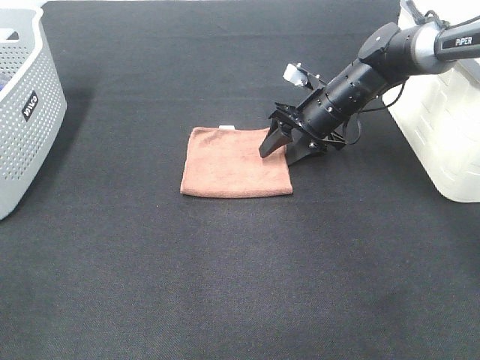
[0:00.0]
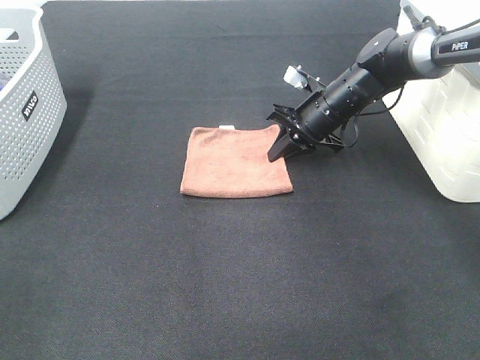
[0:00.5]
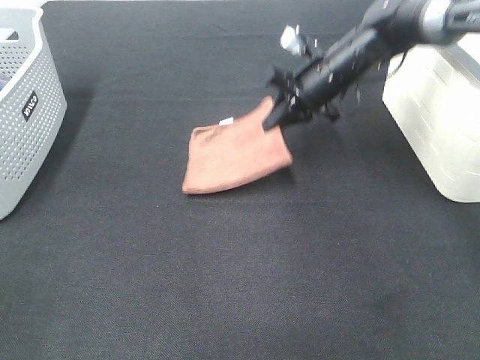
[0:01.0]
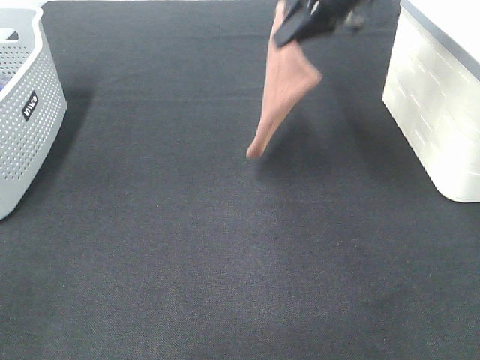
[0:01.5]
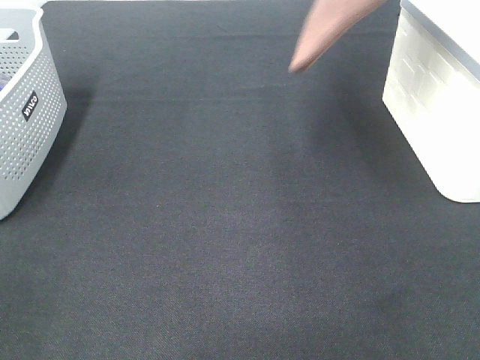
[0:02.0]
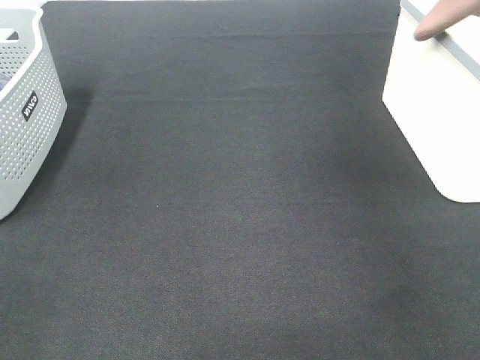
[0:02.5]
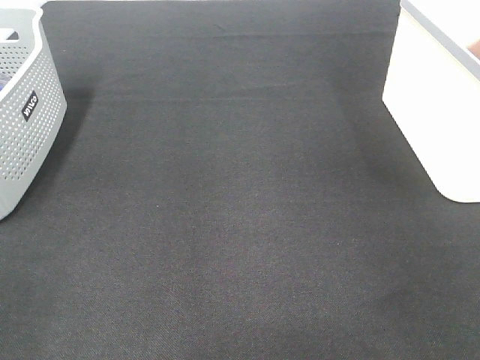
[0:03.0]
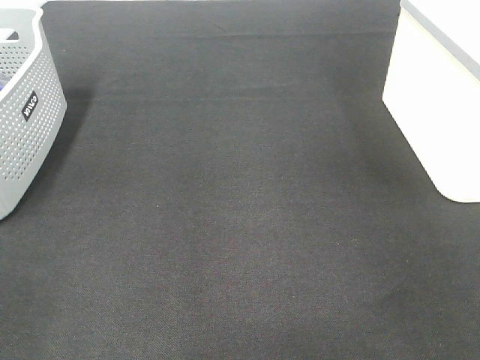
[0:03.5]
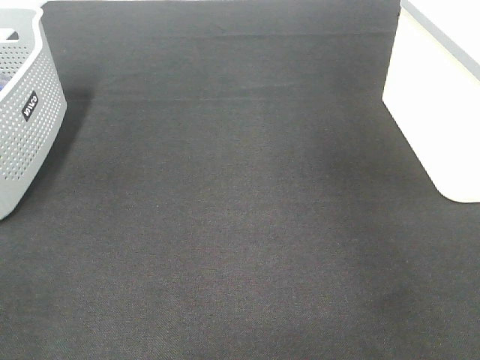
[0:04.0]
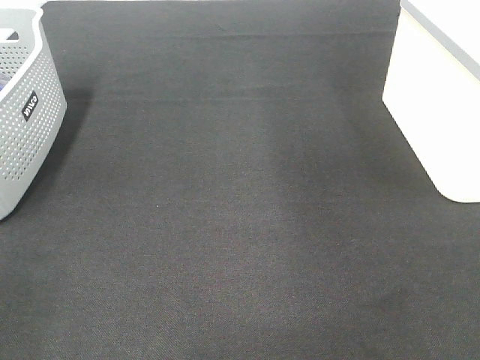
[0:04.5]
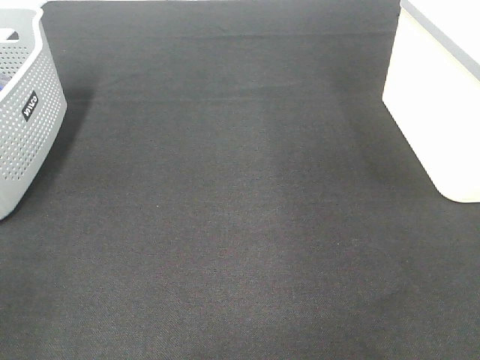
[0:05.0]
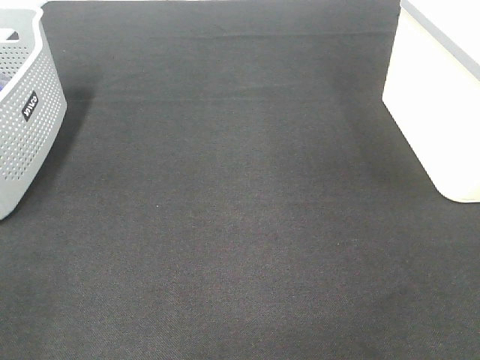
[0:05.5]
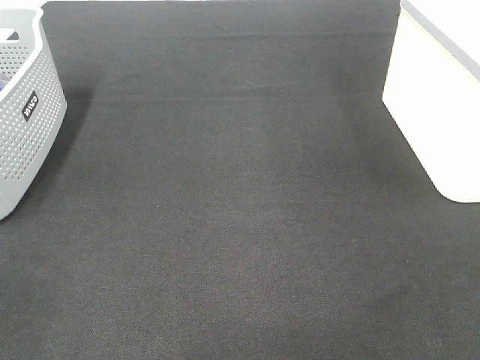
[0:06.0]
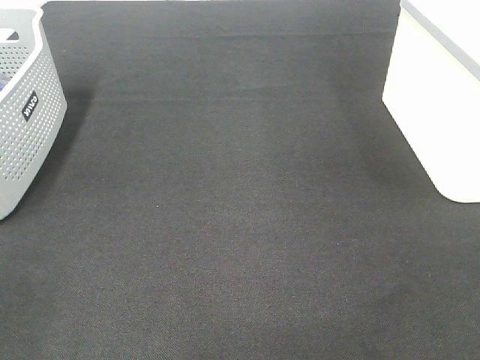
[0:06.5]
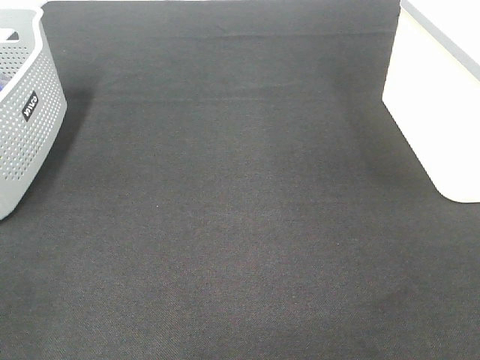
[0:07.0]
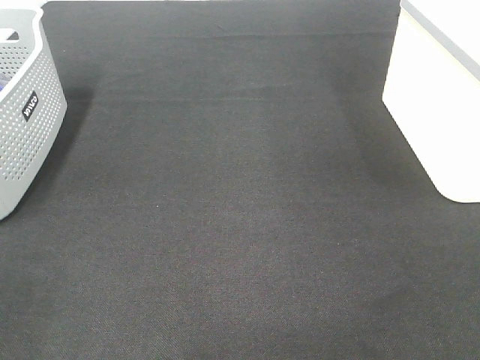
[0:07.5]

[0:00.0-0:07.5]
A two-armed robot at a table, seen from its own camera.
Step, 0:01.0 to 0:03.5: Right hand: place the brown towel in right basket.
0:00.0 to 0:02.0: The right gripper travels upward by about 30 cm, and closes its fingers.
0:02.0 to 0:04.0: The right gripper travels to the right by approximately 10 cm, and opens its fingers.

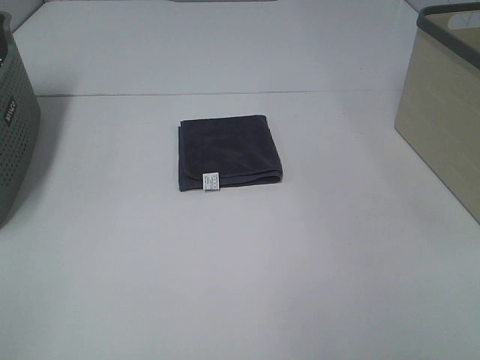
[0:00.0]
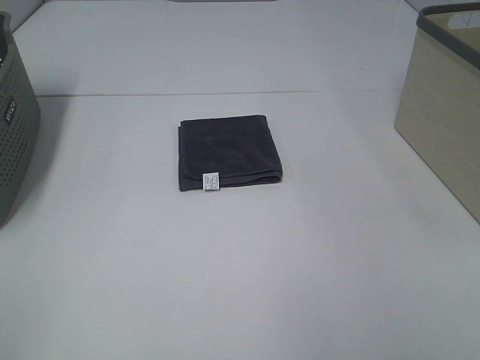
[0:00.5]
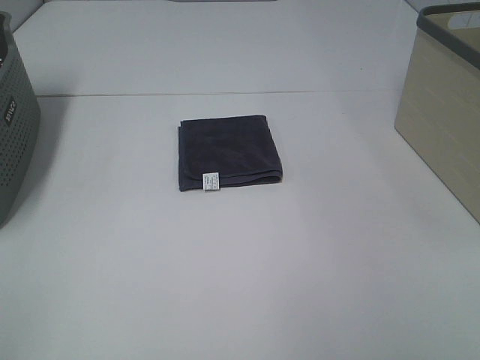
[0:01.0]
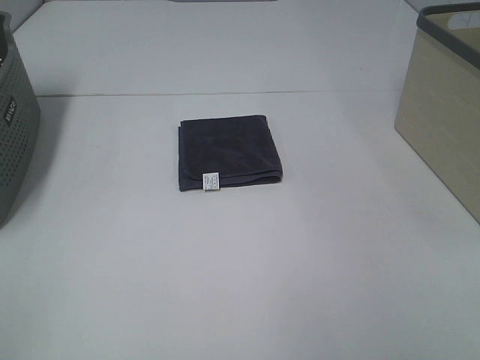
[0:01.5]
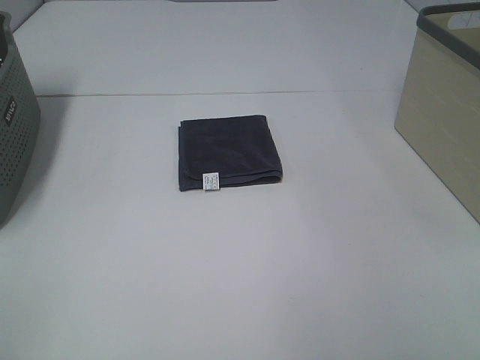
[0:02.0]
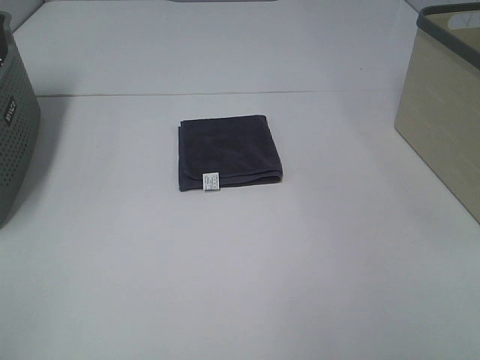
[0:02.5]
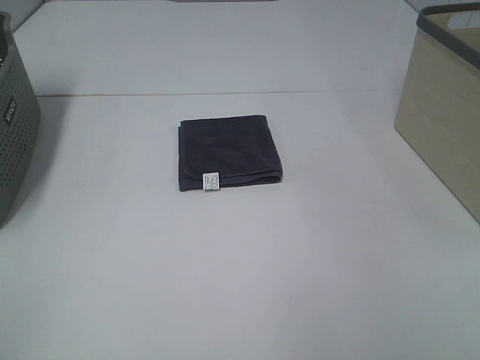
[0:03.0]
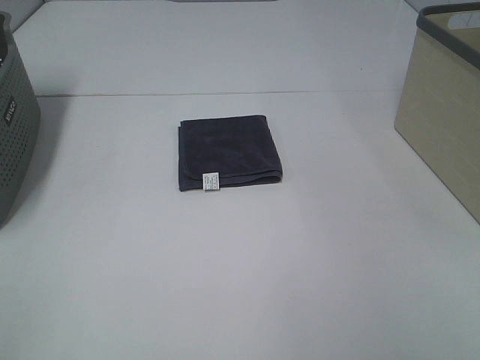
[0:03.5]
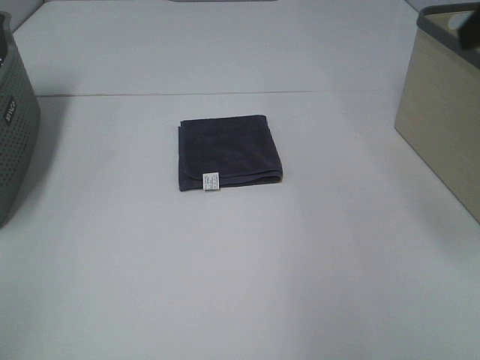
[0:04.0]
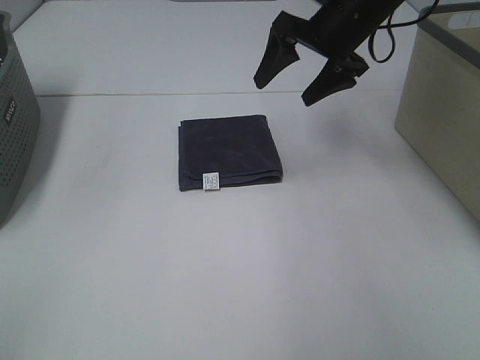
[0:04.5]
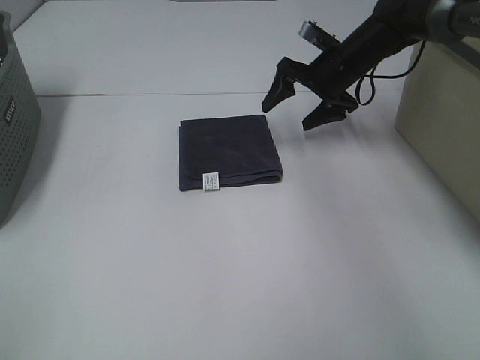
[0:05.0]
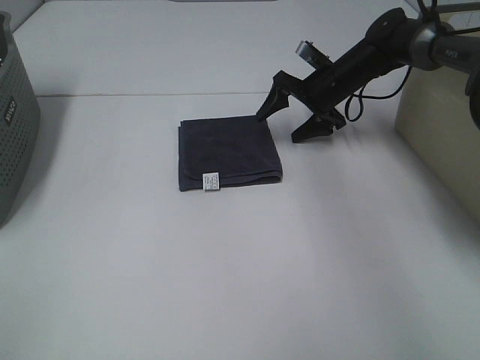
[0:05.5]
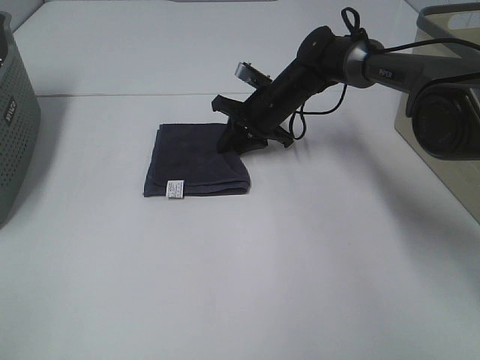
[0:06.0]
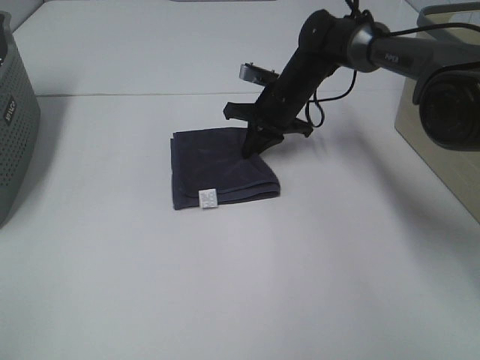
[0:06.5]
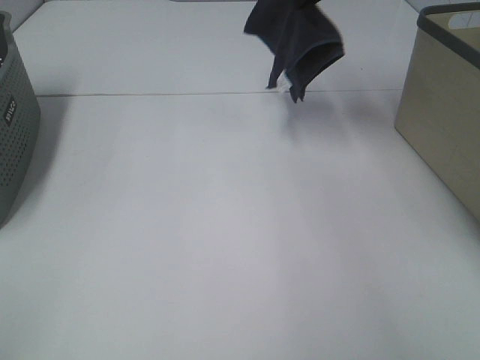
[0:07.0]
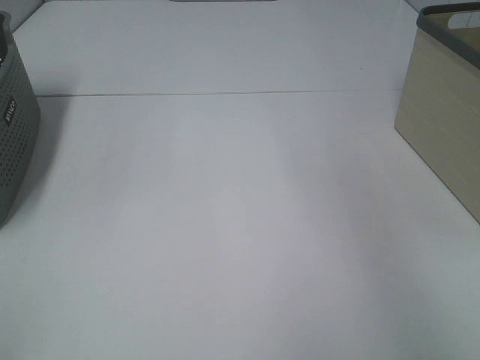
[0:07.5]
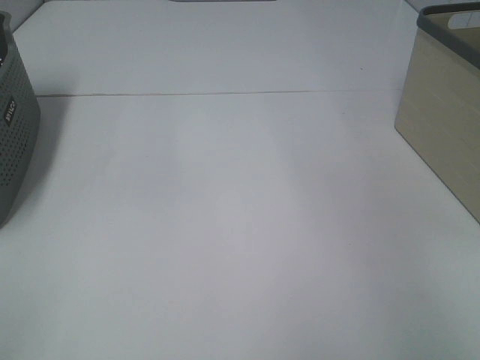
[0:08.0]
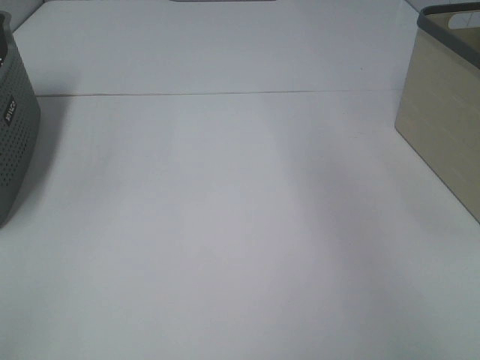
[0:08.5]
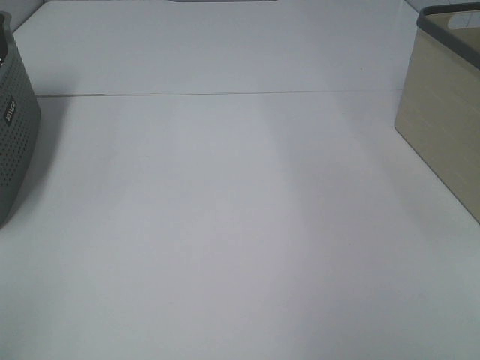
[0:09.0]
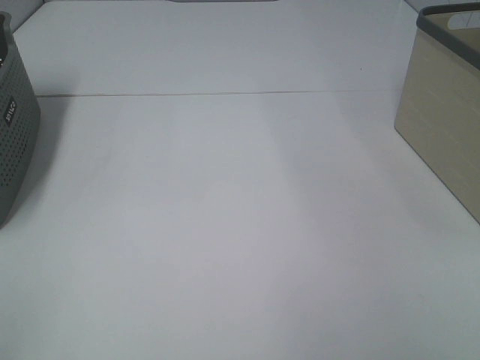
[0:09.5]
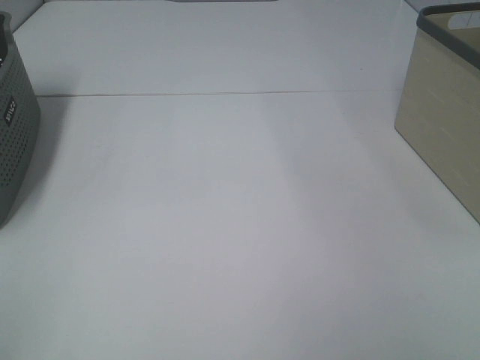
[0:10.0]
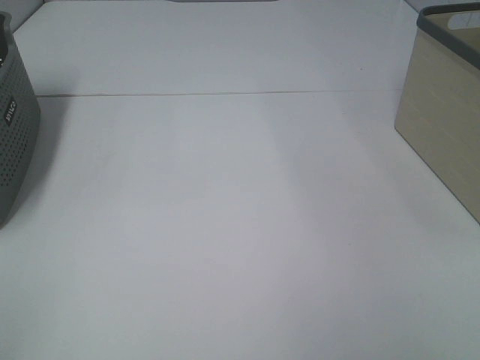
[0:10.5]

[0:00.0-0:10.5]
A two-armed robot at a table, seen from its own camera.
Step, 0:00.0 to 0:06.0: Right hand: grab the folded grey towel.
Step, 0:06.5 to 0:08.0: Right hand: place the grey towel in right basket.
0:00.0 to 0:02.0: The two grippers keep their place.
0:04.0 to 0:06.5: The right gripper moves downward, forward and to the left, some 40 cm, and closes.
0:06.5 to 0:08.5: The right gripper moves upward and to the right, roughly 40 cm, and opens.

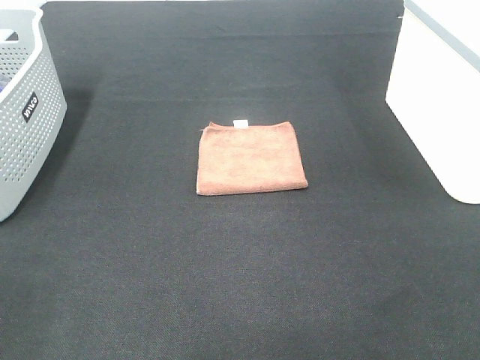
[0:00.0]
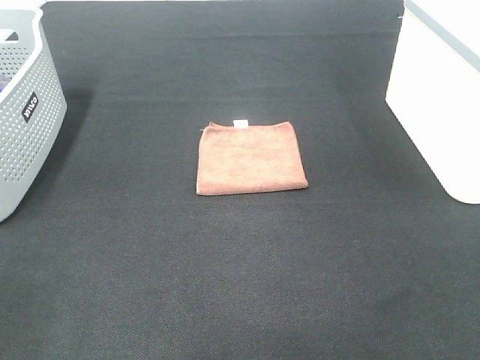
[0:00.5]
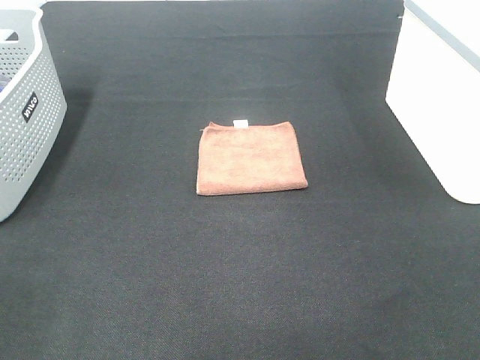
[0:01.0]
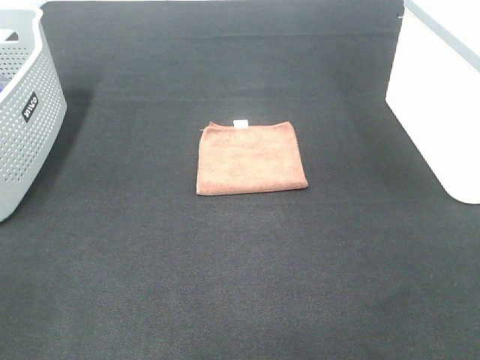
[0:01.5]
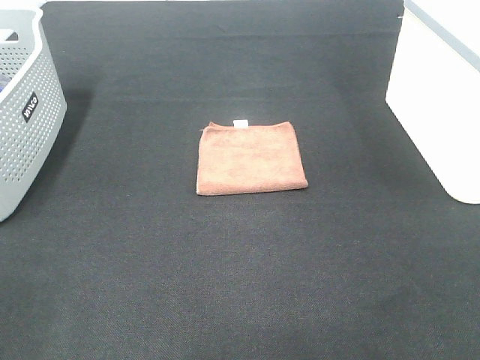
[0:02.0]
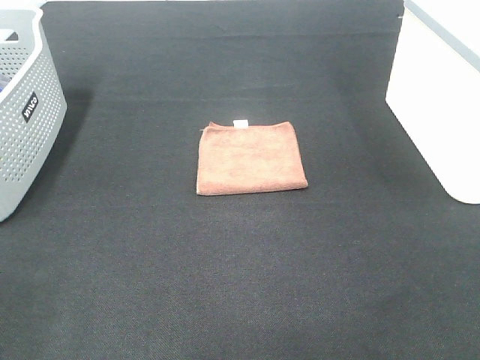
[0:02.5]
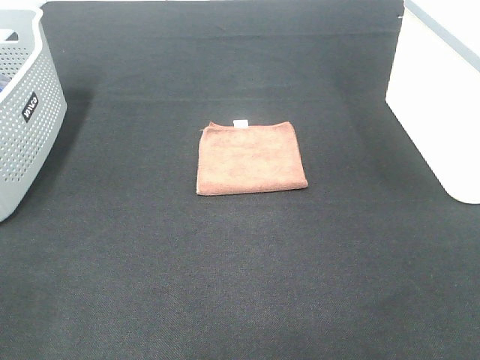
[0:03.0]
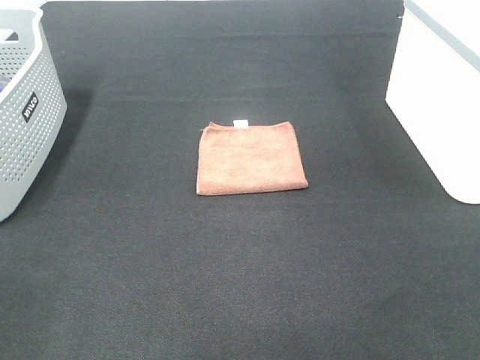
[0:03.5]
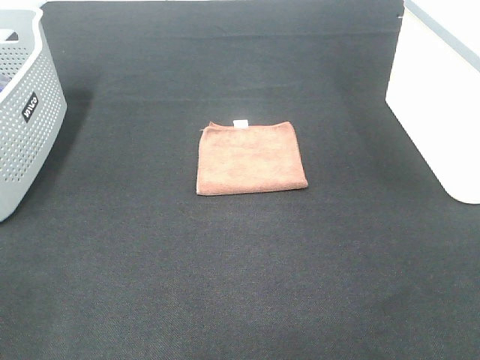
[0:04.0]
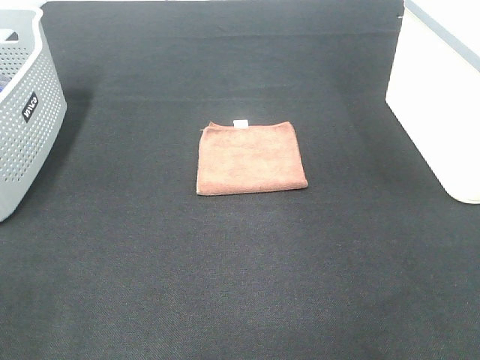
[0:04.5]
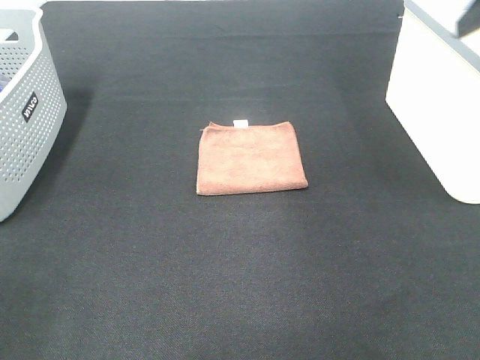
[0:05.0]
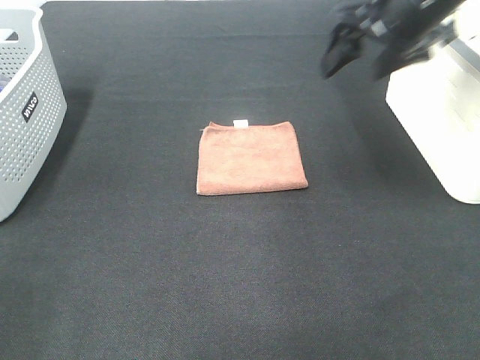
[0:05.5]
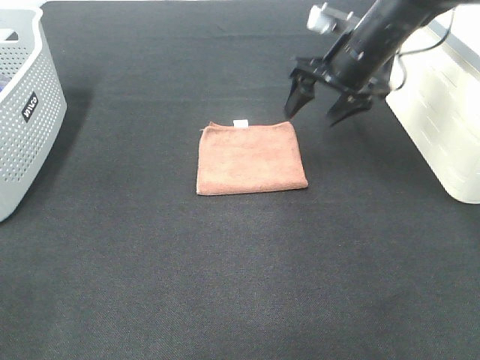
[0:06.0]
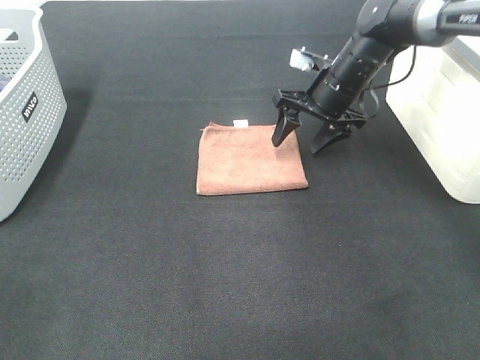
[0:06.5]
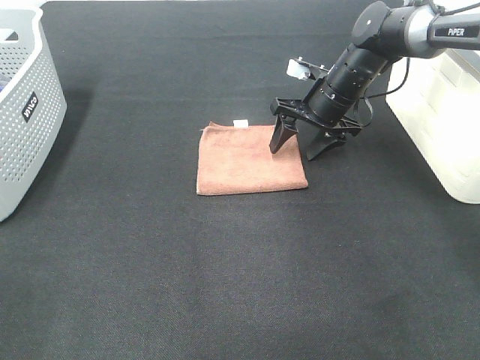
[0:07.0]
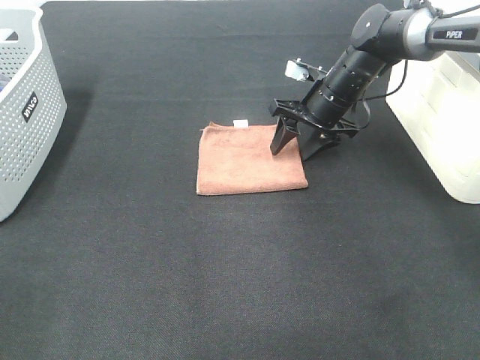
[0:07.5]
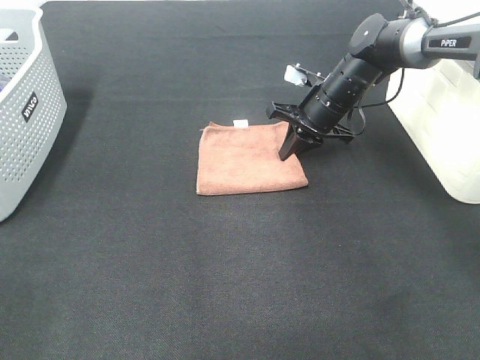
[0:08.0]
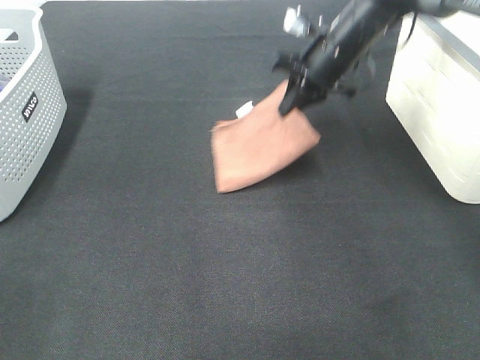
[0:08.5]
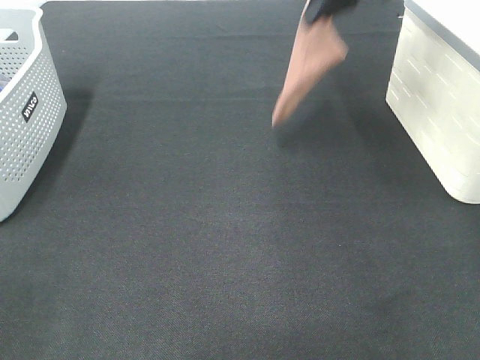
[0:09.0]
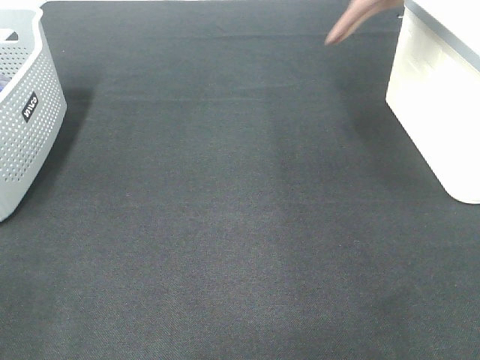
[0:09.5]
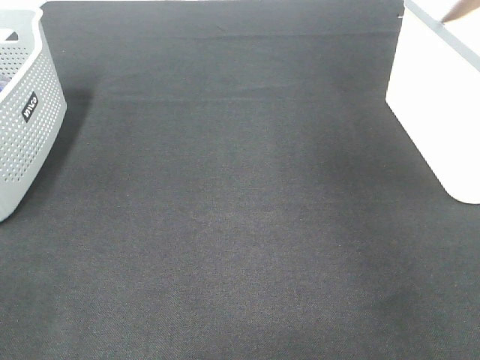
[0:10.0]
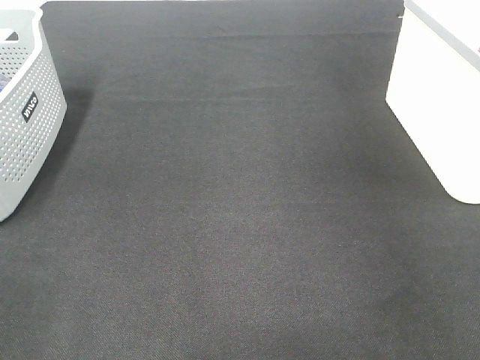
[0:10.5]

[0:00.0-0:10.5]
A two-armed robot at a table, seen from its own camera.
Step, 0:00.0 to 0:08.0: Right hand: grab the folded brown towel.
0:00.0 to 0:02.0: Both grippers stay about where they are.
0:04.0 to 0:06.5: The right gripper heads forward, covering about 50 cm.
0:06.5 to 0:08.5: The right gripper goes approximately 5 cm upward, and closes up.
0:08.5 to 0:10.5: The right gripper heads to the right and upward, covering about 30 cm.
